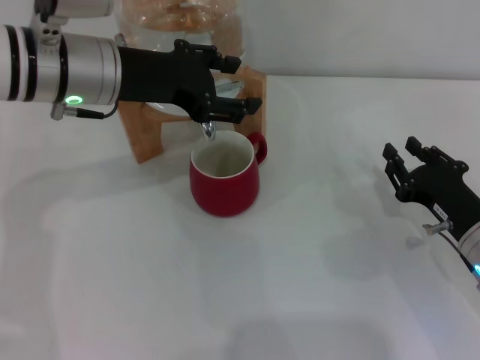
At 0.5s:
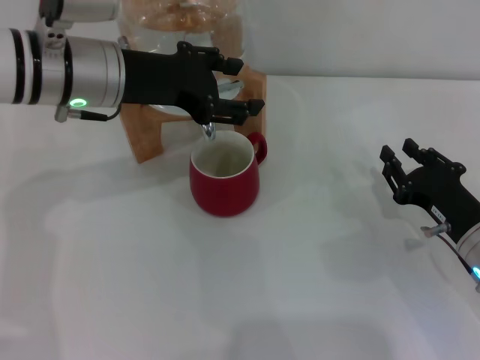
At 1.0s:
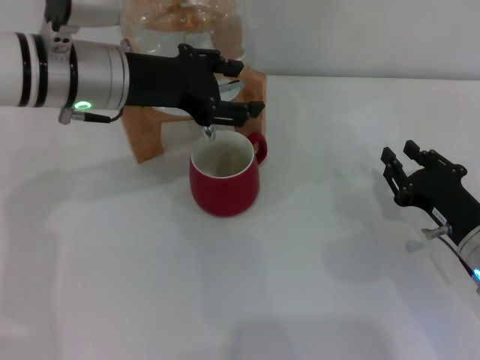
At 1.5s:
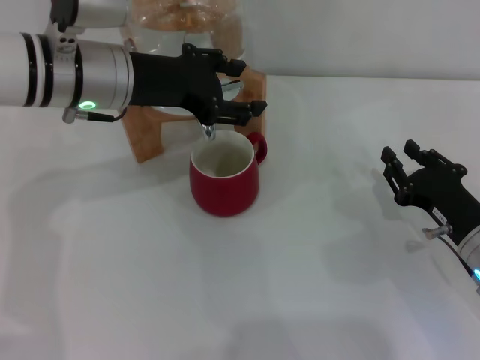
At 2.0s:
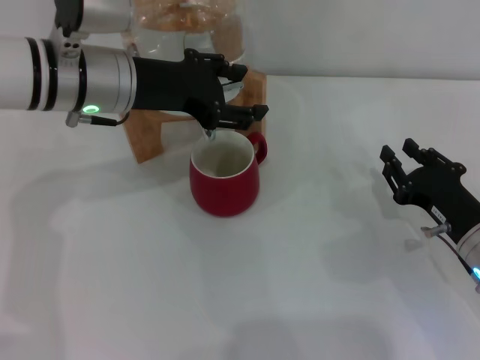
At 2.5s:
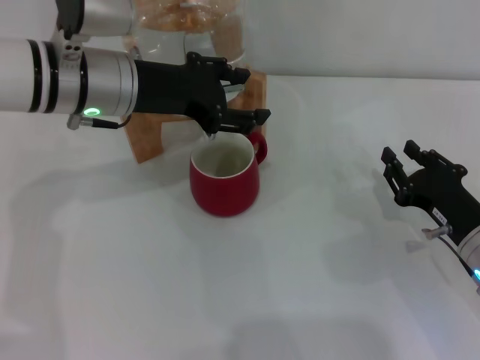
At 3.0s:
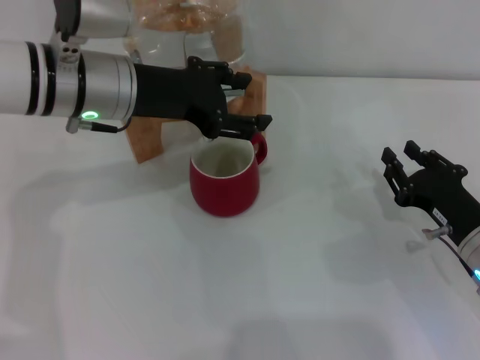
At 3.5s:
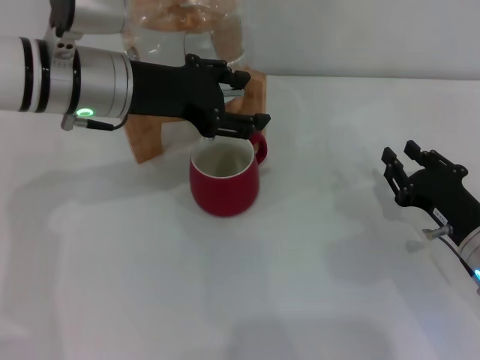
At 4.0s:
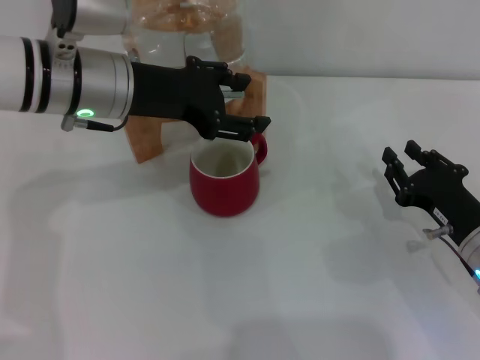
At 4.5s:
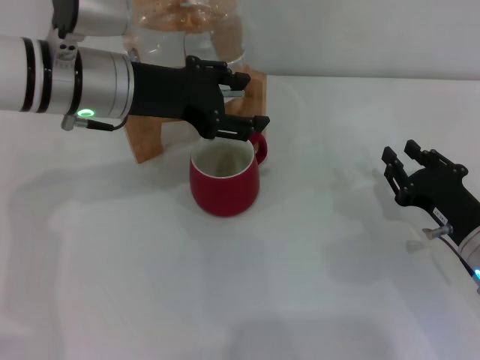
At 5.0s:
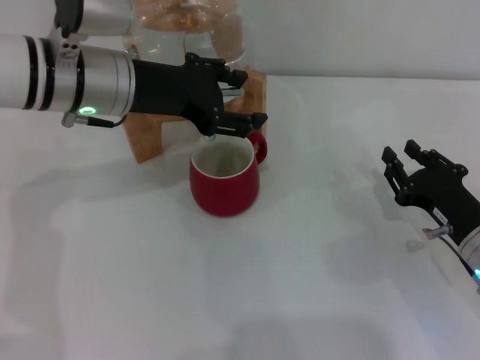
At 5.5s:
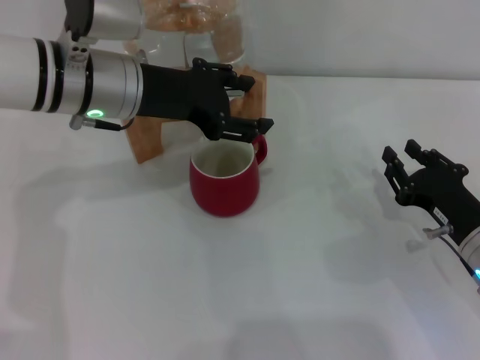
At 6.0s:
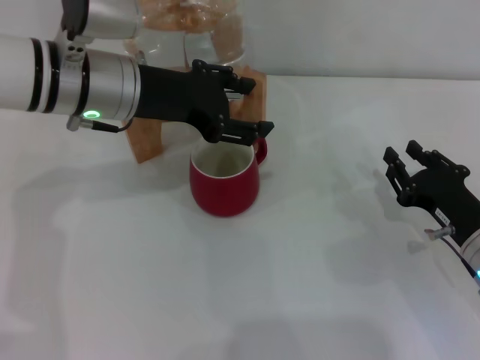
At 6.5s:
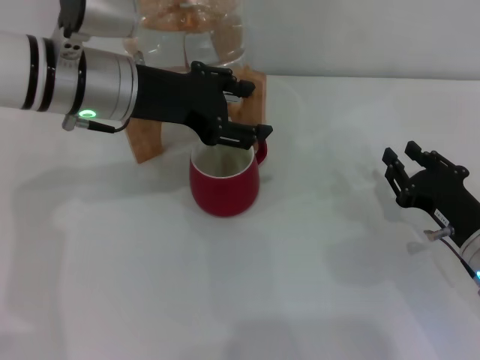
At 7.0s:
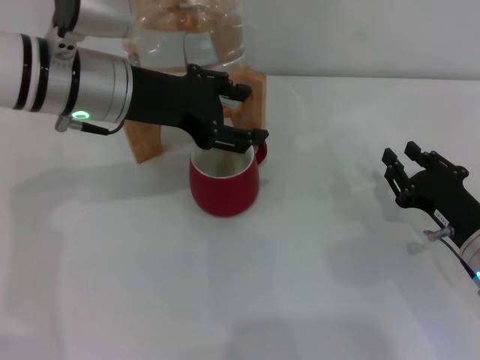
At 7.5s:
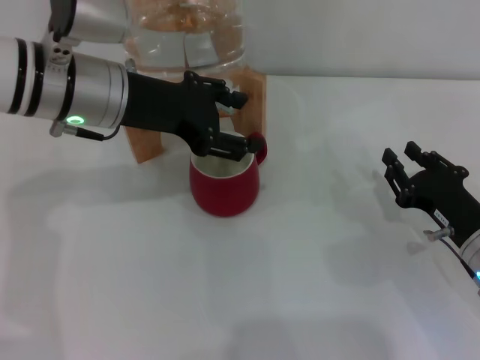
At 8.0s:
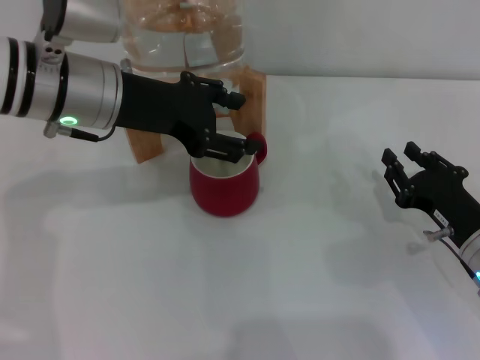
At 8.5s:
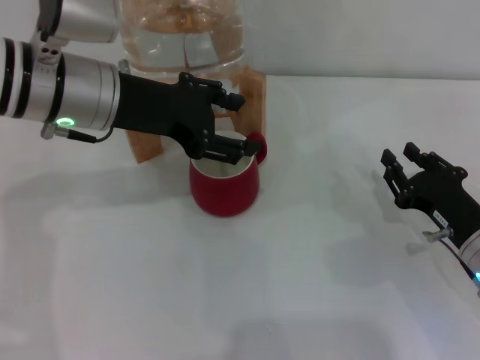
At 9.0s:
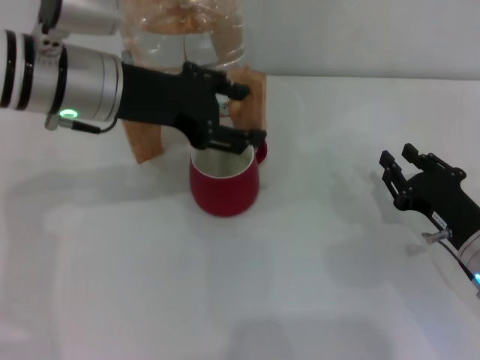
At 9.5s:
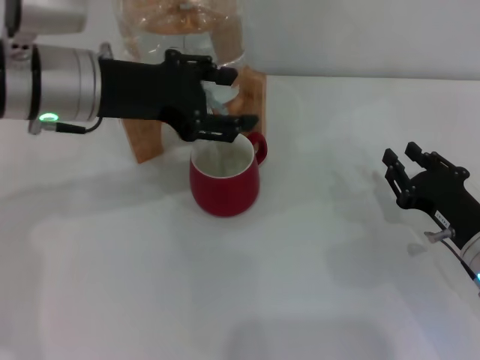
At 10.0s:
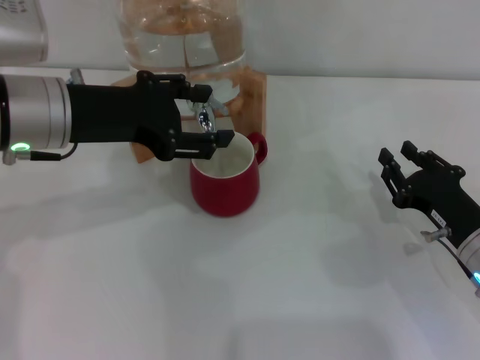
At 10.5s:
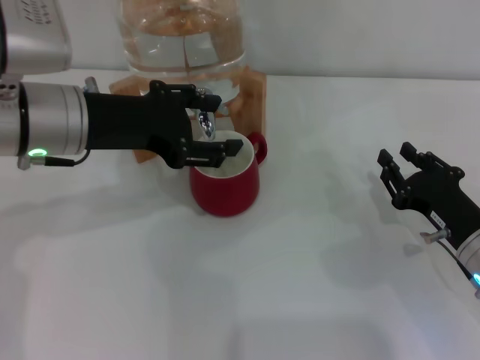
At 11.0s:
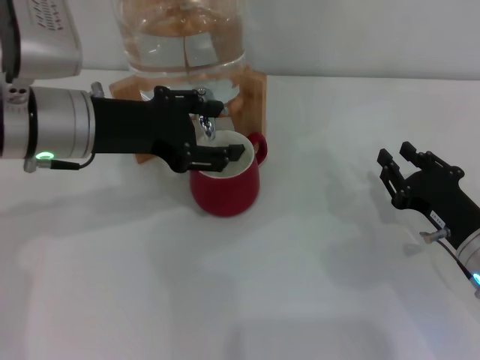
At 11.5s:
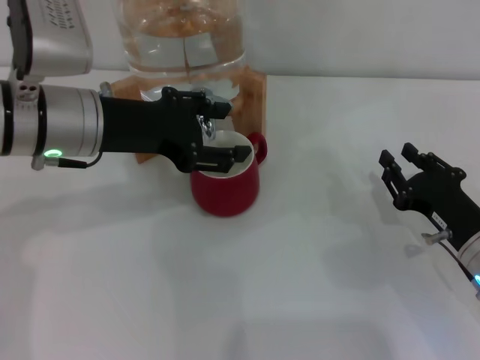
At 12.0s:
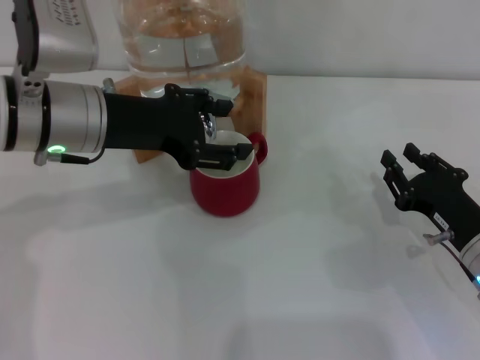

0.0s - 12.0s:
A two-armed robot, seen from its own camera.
Task of the whole recording: the right gripper pick up the red cup and place it horizontally under the faucet, the left gripper turn on the faucet to fill the cup, and then turn off the faucet.
Step, 0.0s - 9.5s: Open the dispenser valve and fill the cup with water with the left gripper.
0.0s - 2.0s: The grippers move only a little.
2.0s - 6.0s: Neither gripper changes place.
6.0s - 8.0s: The grippers stay close to where they were, moving slightly.
8.0s - 12.0s: The grippers stay close to where they were, moving slightly.

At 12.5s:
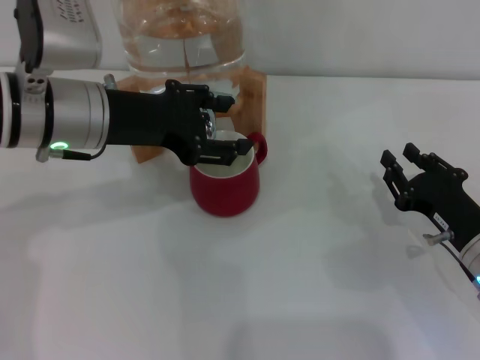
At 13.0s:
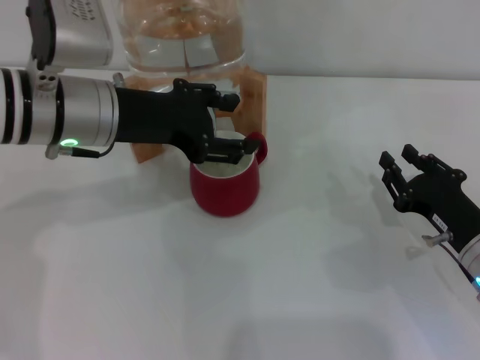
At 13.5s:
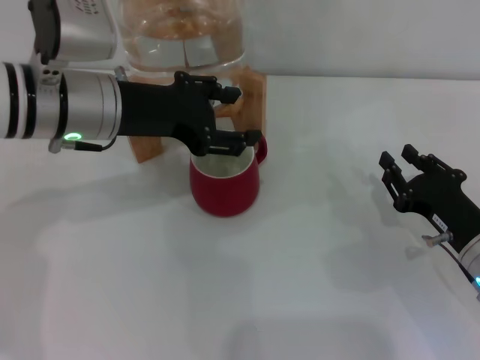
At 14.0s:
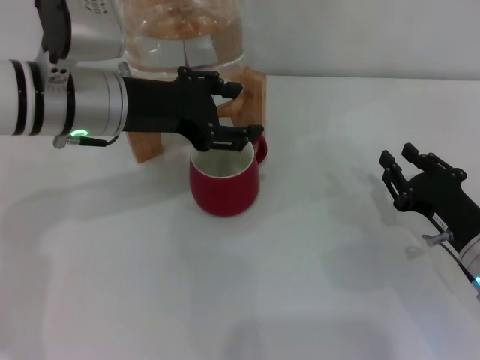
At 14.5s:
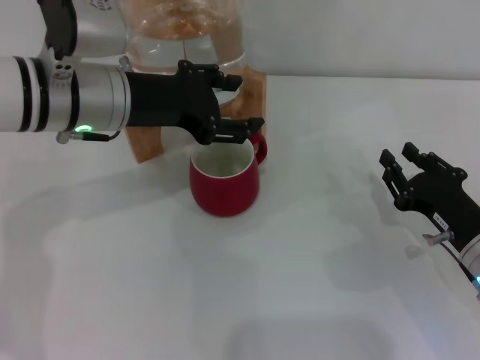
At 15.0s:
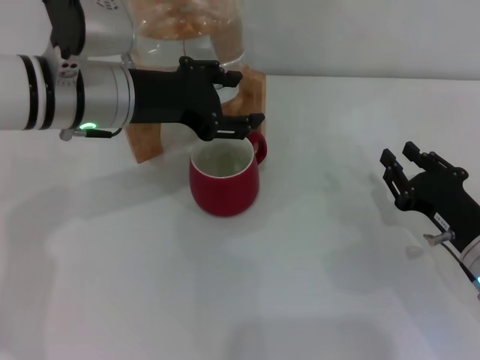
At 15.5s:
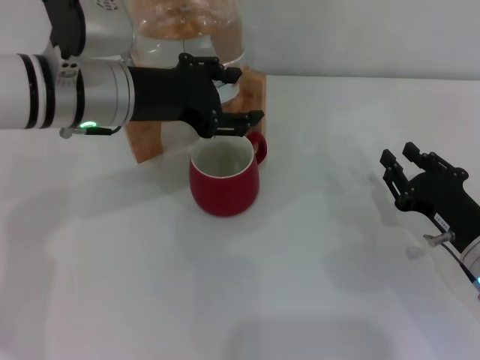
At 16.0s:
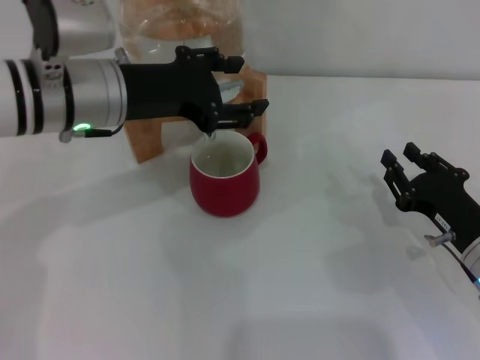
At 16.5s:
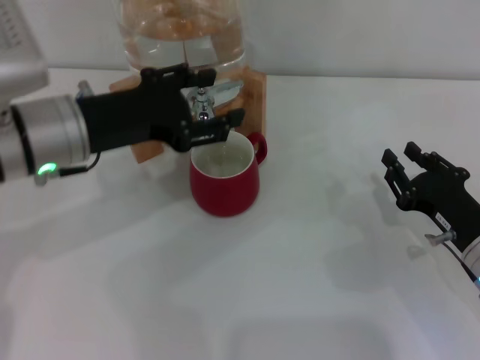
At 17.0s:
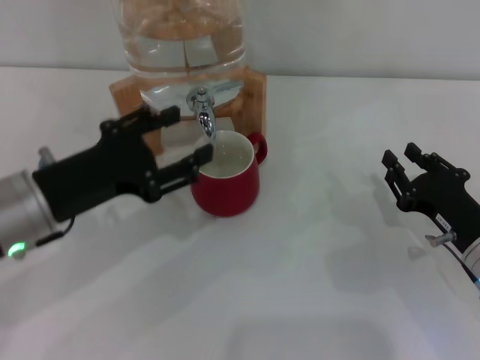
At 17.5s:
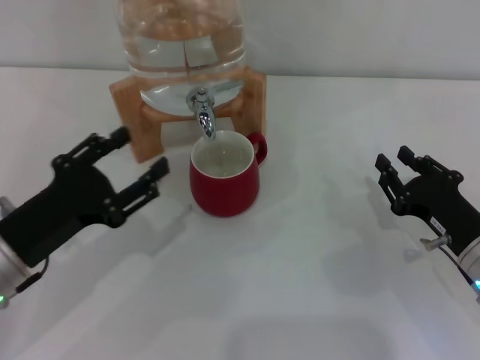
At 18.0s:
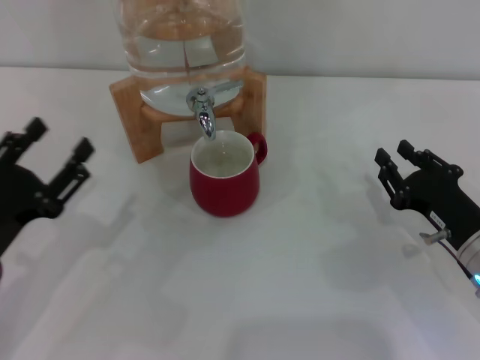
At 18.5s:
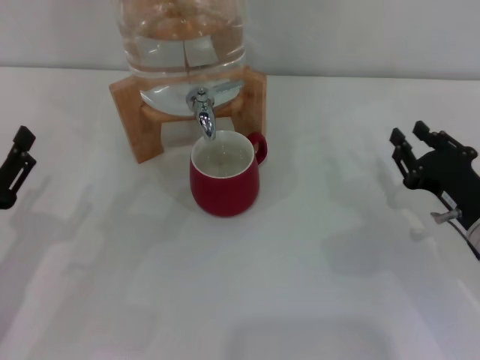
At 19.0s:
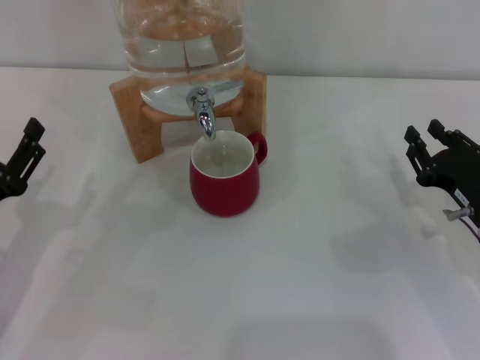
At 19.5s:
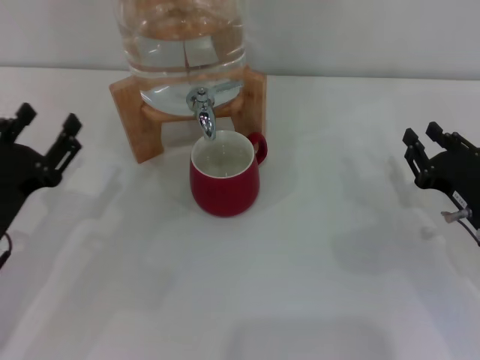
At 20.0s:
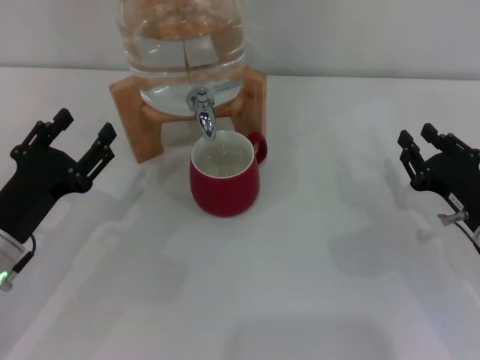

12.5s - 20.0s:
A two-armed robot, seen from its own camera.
Task of the whole recording: the right gripper pick up the red cup and place it horizontally under the faucet, the left gripper turn on the faucet to fill the cup, and then turn off the faucet.
Step, 12.5s - 16.5s: Close the dispenser valve with the left gripper.
12.5s - 14.5s: The grippers make only small movements.
14.5s - 16.5s: The left gripper ends up some 5 cm from where it was.
16.5s - 18.0s: The left gripper travels backward, downward and to the left by approximately 15 cm.
18.0s - 20.0s: The left gripper shifts by about 5 cm.

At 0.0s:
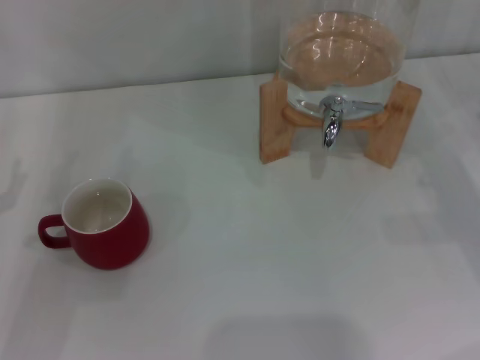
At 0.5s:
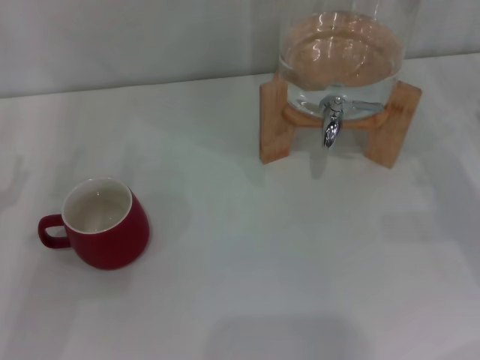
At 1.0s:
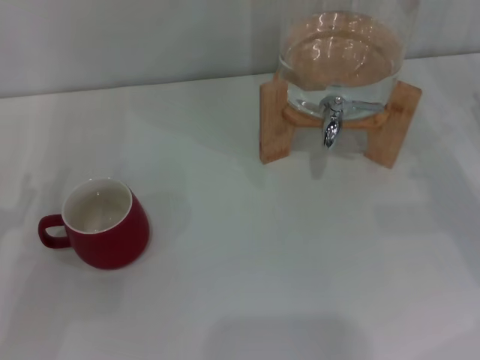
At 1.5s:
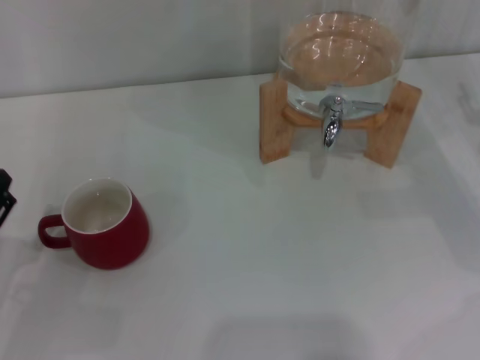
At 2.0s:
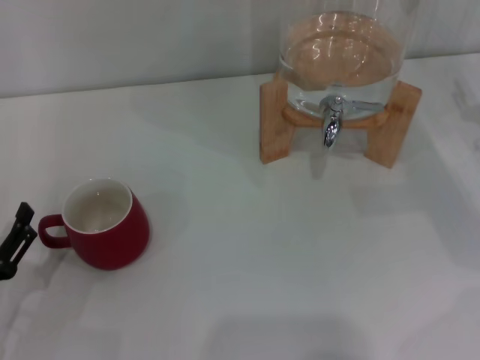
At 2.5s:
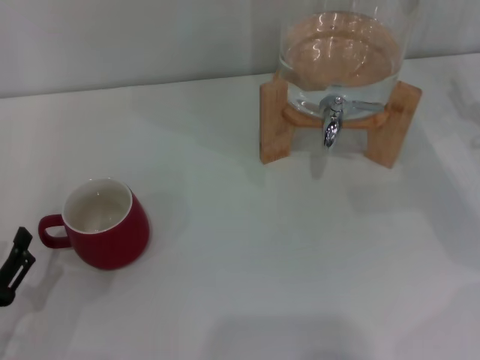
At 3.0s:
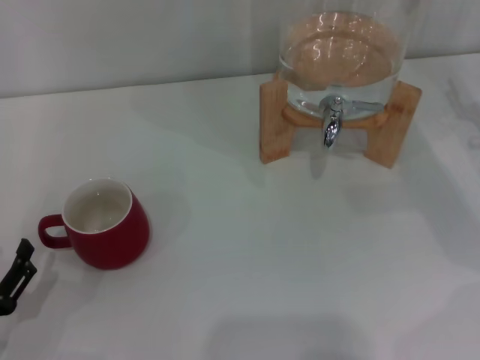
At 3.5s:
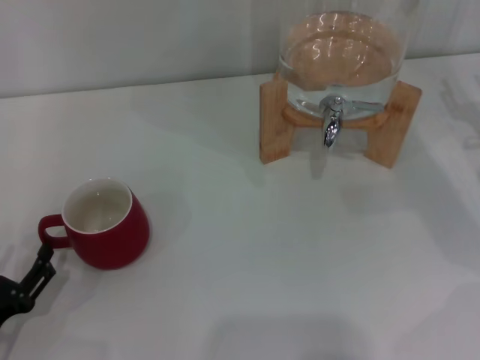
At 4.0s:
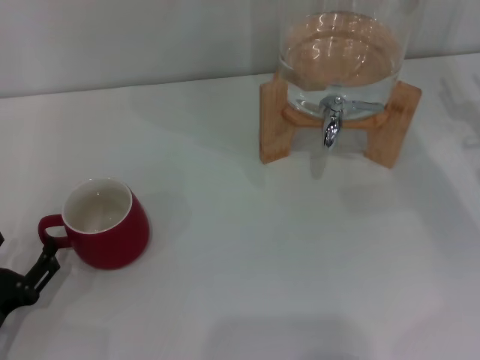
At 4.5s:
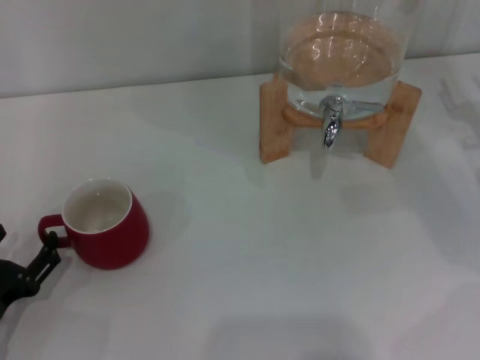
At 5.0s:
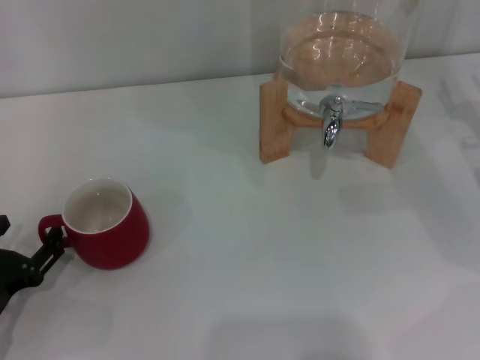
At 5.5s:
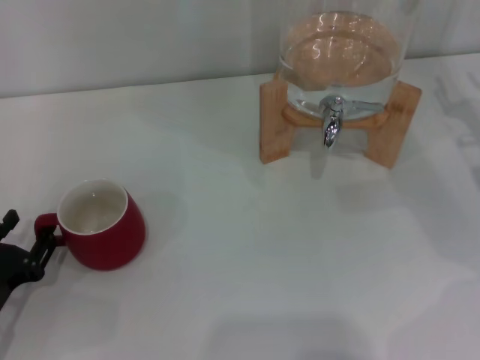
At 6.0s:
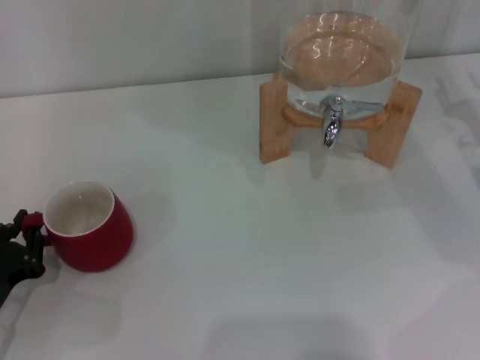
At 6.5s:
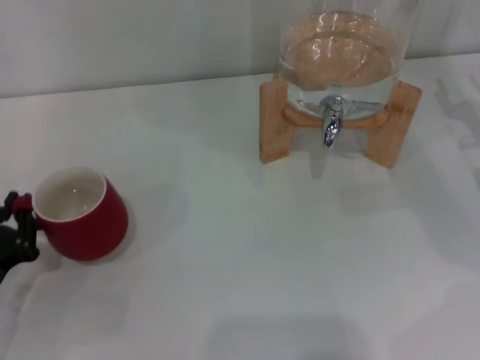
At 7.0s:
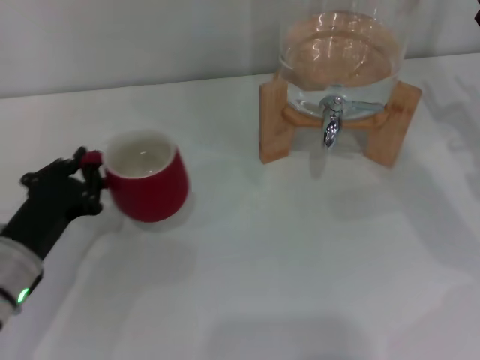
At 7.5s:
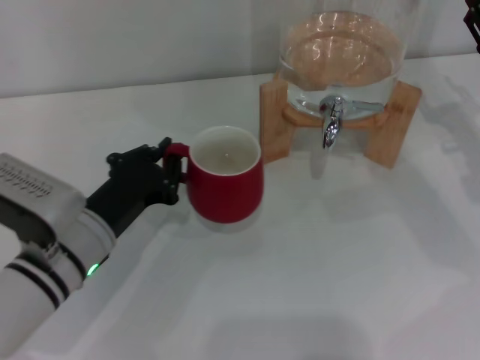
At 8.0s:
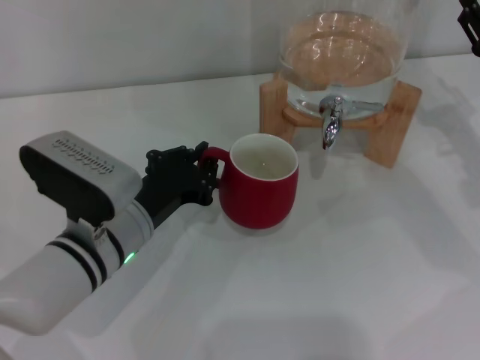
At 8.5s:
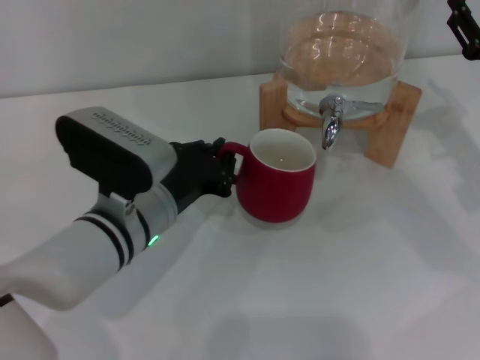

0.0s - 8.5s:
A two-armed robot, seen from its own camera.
Task of the whole recording: the left gripper pick up the red cup and place it horizontally under the faucet, the right gripper turn on the faucet to fill the cup, and then turn off the faucet.
0.0s - 2.0s: The left gripper is displaced backward and downward by approximately 10 cm.
2.0s - 4.0s: The grippers make only small movements.
4.0s - 6.5s: The left gripper closes its fingers.
6.5s - 8.5s: The left gripper moves to the right, about 20 cm.
